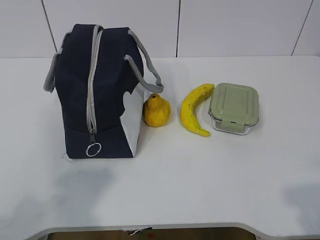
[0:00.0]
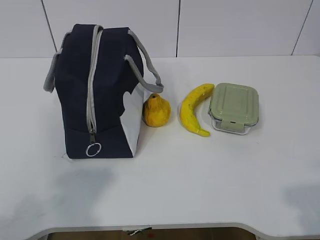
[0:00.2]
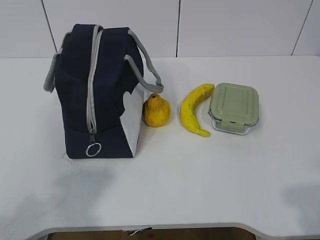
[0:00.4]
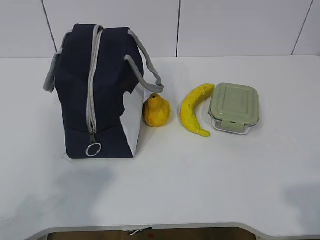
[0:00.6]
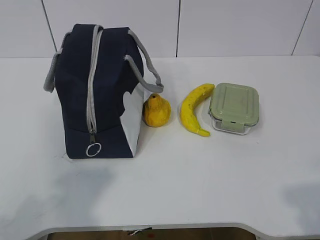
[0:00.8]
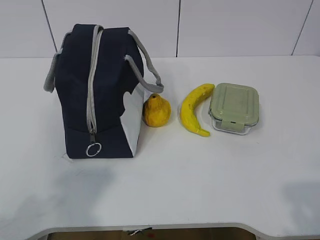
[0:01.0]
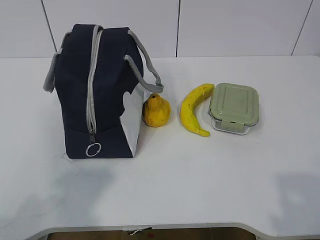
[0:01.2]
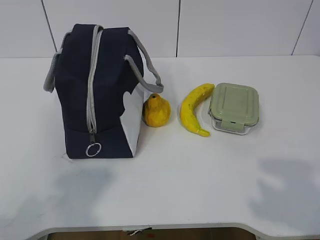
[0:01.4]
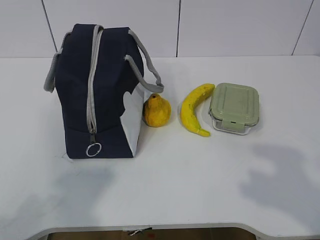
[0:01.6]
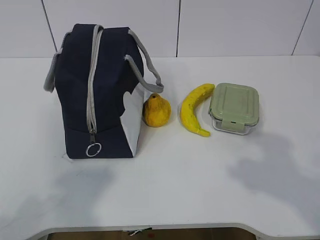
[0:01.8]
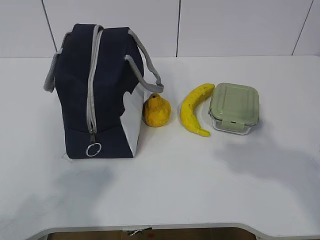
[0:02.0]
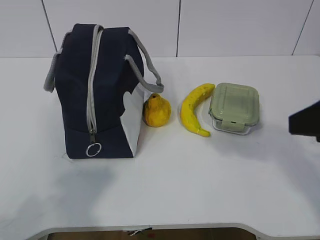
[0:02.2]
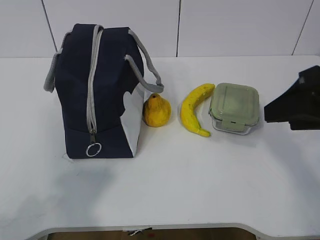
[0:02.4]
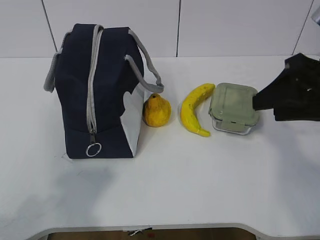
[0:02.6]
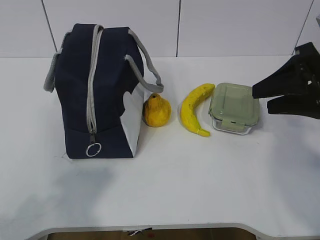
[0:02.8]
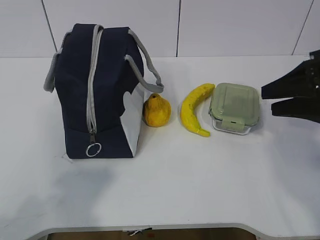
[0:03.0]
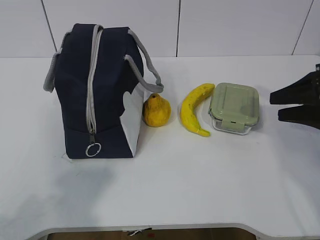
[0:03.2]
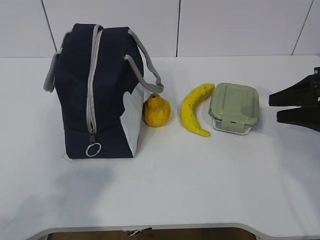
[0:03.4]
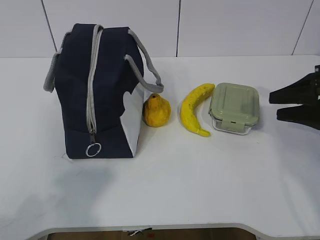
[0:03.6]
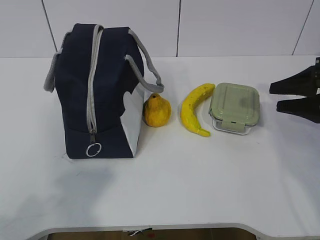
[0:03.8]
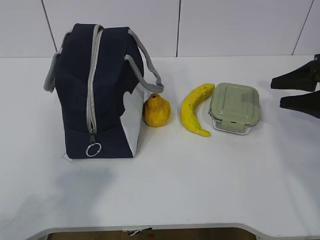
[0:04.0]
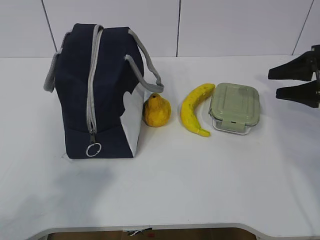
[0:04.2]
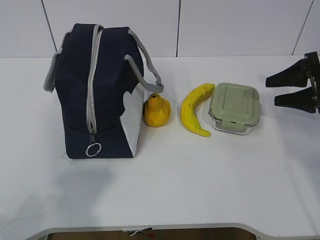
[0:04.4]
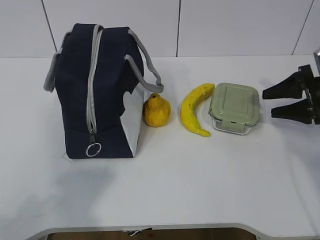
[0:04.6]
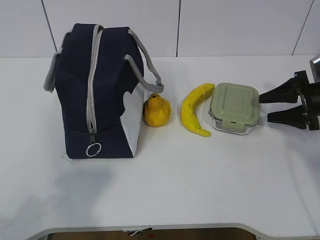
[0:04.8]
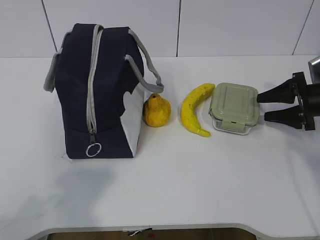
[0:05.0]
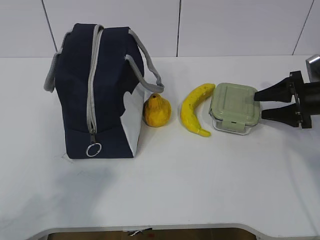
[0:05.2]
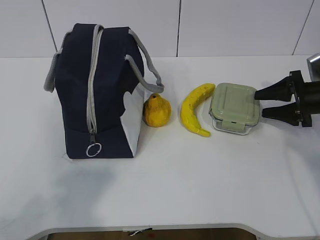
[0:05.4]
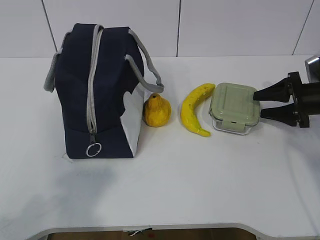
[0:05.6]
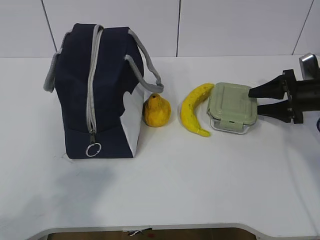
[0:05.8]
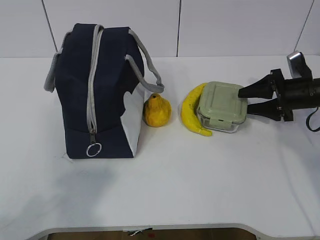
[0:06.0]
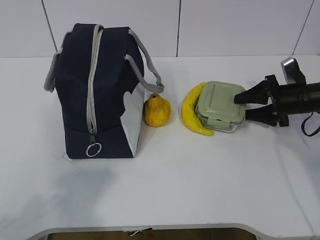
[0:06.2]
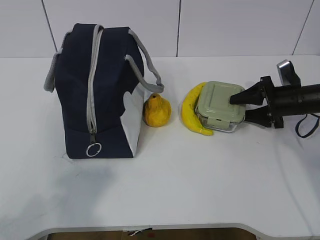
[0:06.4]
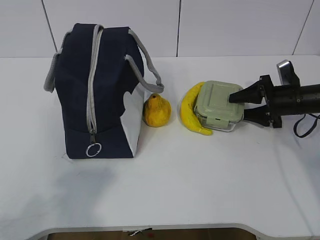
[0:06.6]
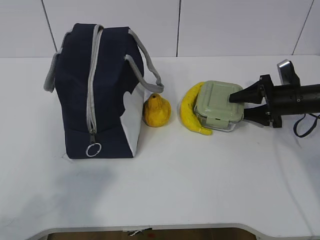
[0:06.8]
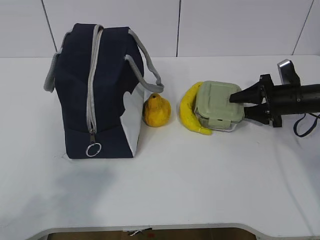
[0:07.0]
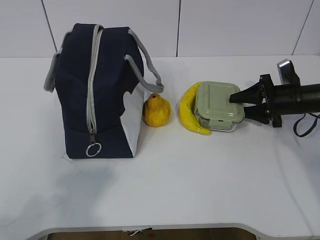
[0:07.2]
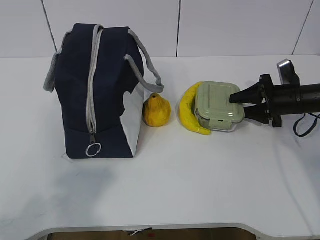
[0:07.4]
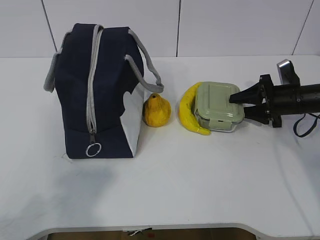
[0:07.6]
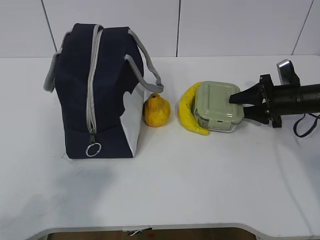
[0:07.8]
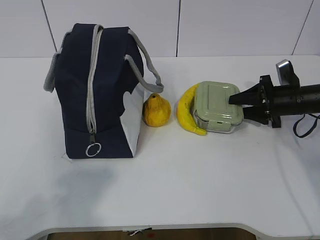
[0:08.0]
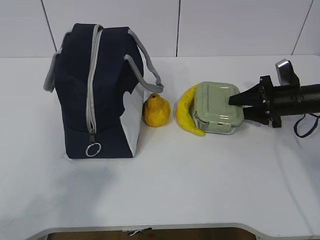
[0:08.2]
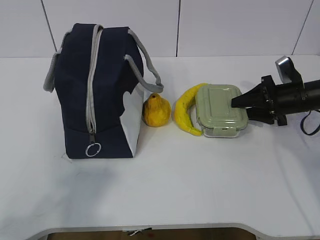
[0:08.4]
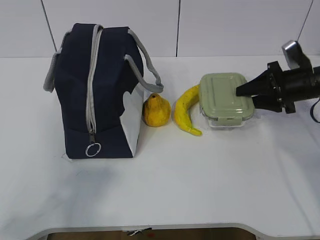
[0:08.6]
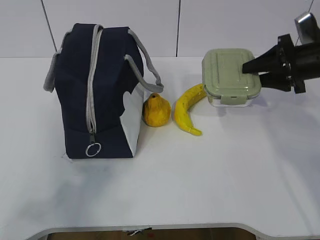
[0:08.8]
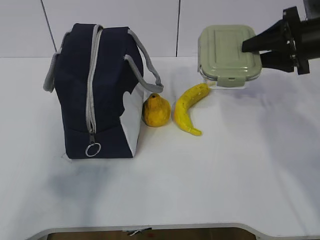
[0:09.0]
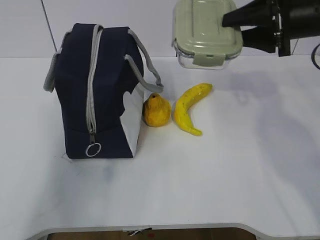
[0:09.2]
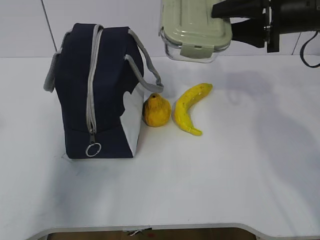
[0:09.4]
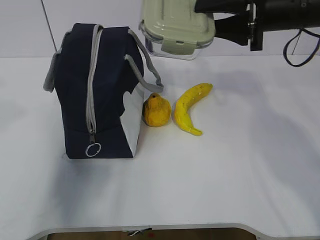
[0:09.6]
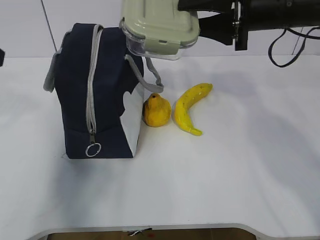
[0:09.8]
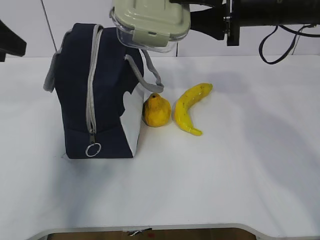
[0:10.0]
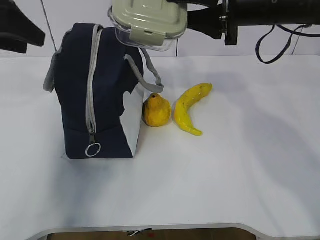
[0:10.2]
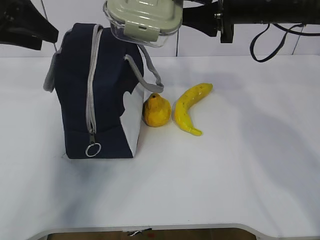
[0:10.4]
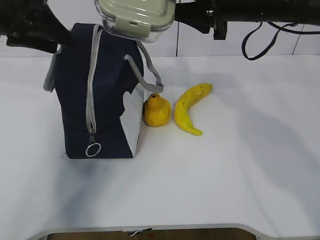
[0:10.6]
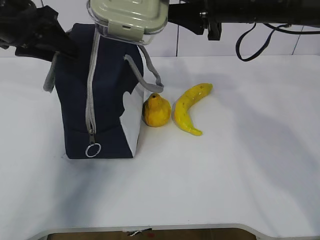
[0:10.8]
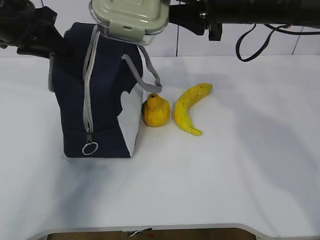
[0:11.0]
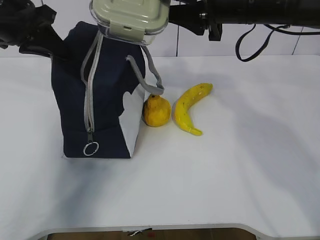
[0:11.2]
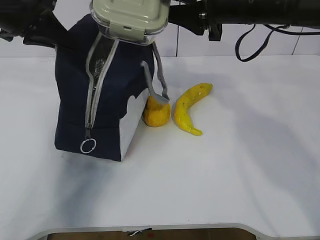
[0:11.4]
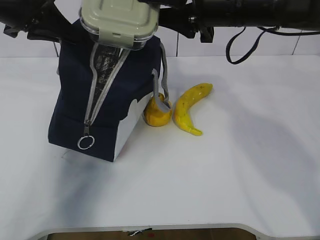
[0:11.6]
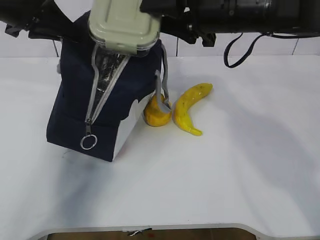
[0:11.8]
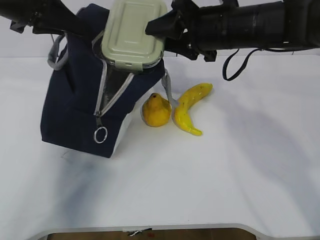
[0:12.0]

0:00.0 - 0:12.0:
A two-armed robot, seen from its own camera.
Step, 0:00.0 - 0:06.8: Grab the lunch box with your right hand.
Step, 0:07.0 - 0:09.8: Grab the lunch bag with your left hand.
Step, 0:10.0 - 0:11.6: Place it into the bag with your right hand.
0:01.6 - 0:03.0: The right gripper shifts roughly 25 cm forward.
0:03.0 - 0:04.4: The right gripper heads forward, to the right and downward, covering approximately 10 cm.
0:04.4 - 0:06.0: The right gripper shifts some 5 cm downward.
0:06.0 - 0:07.6: The grippers make only small movements.
0:07.6 - 0:09.0: The left gripper moves upward, some 5 cm. The right gripper travels upward by roughly 15 cm.
0:09.0 - 0:10.4: The left gripper heads forward, covering roughly 30 cm, and opens; the right gripper travels to the left and upward by about 15 cm.
0:10.4 - 0:12.0: The right gripper moves approximately 5 cm. The left gripper closes its fingers.

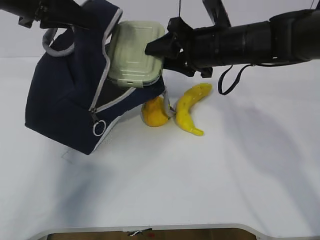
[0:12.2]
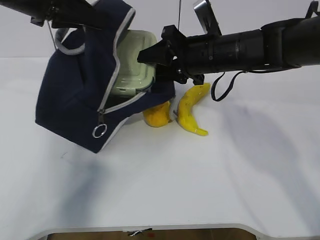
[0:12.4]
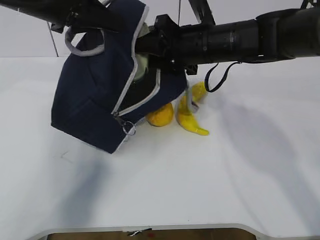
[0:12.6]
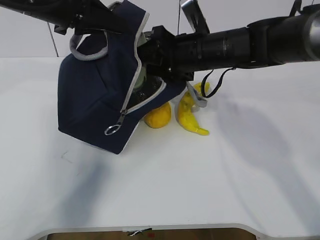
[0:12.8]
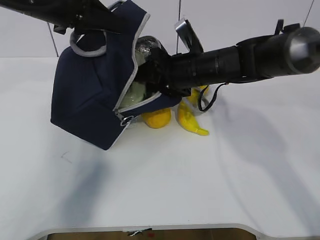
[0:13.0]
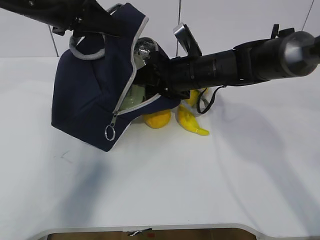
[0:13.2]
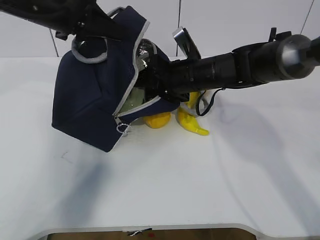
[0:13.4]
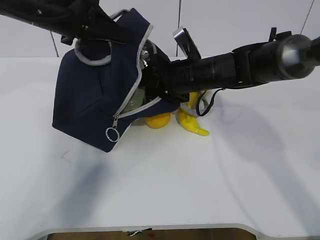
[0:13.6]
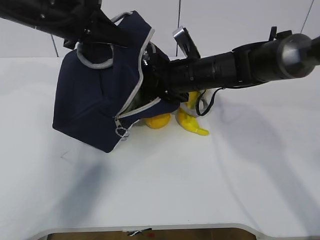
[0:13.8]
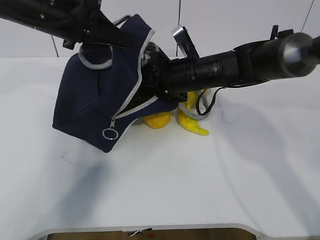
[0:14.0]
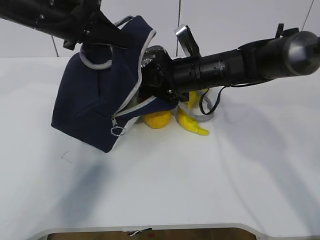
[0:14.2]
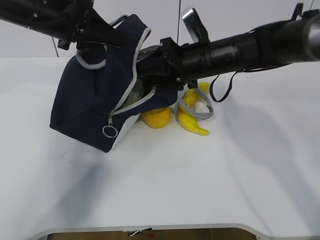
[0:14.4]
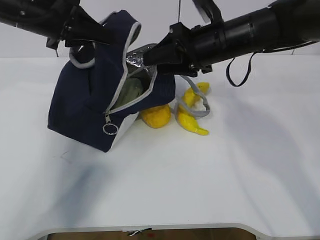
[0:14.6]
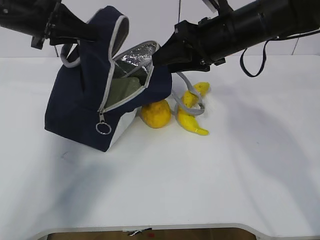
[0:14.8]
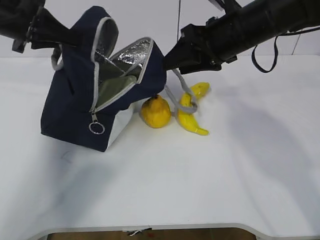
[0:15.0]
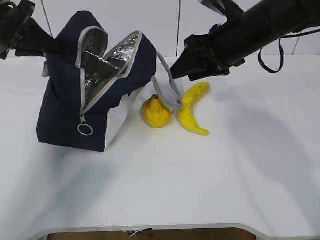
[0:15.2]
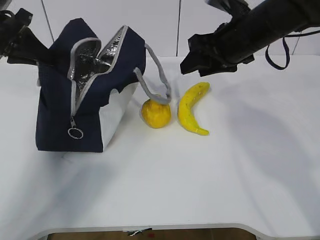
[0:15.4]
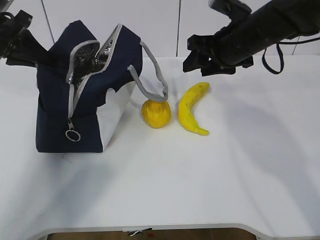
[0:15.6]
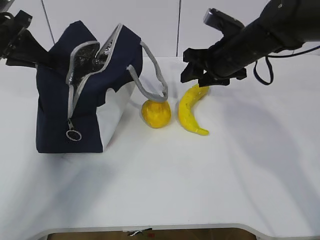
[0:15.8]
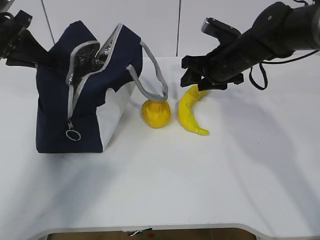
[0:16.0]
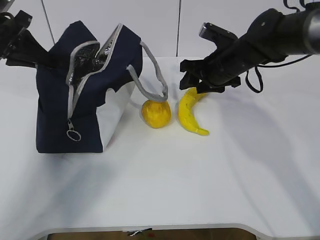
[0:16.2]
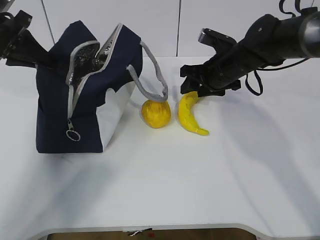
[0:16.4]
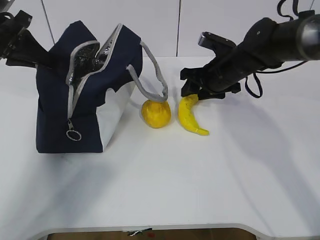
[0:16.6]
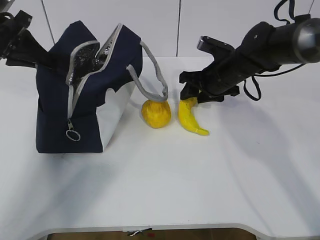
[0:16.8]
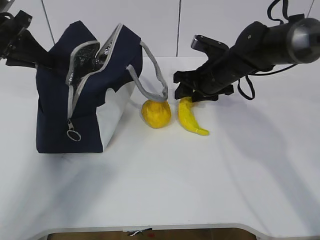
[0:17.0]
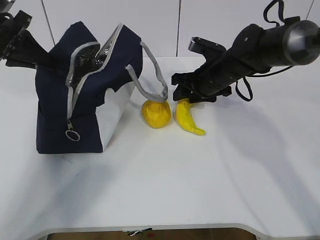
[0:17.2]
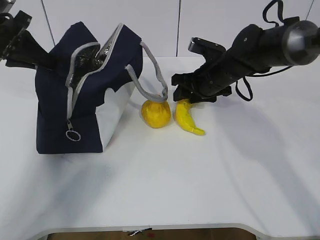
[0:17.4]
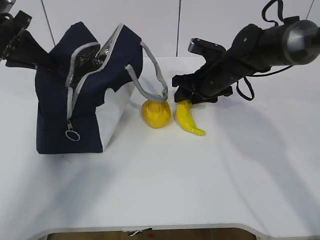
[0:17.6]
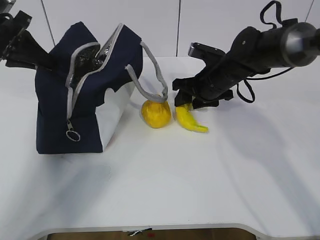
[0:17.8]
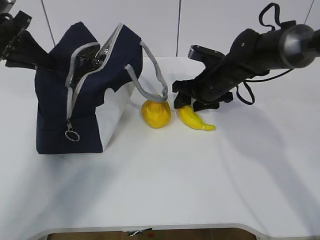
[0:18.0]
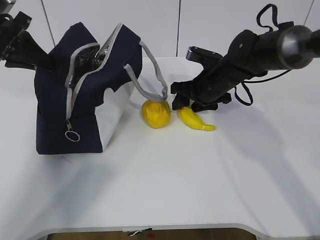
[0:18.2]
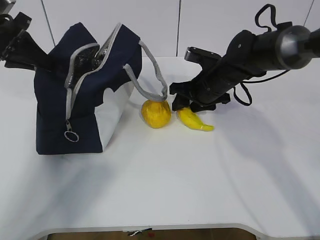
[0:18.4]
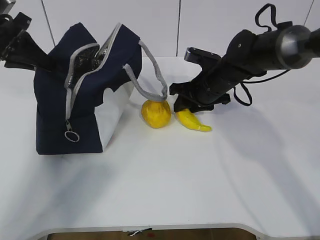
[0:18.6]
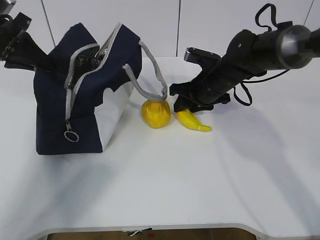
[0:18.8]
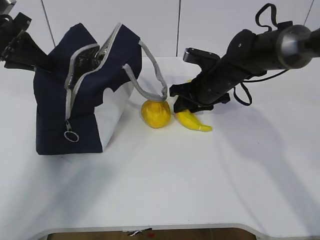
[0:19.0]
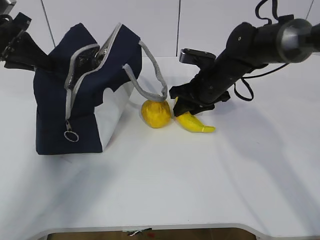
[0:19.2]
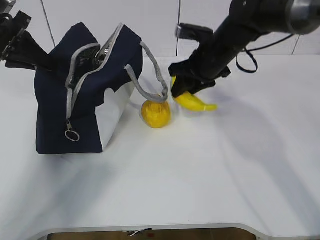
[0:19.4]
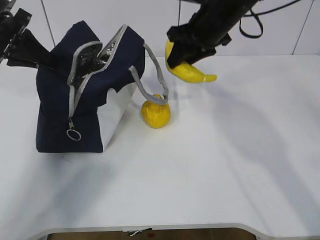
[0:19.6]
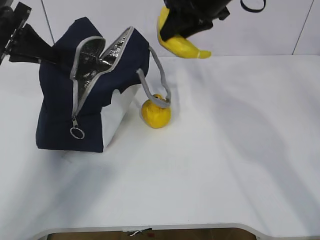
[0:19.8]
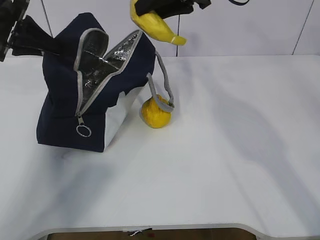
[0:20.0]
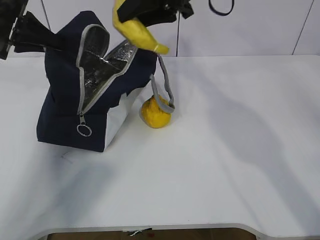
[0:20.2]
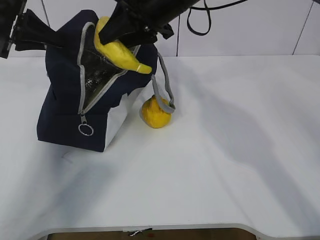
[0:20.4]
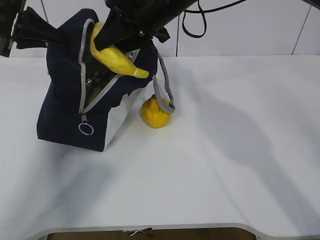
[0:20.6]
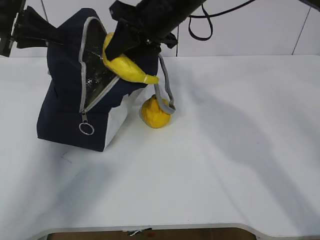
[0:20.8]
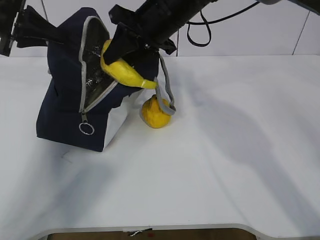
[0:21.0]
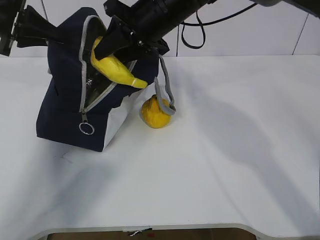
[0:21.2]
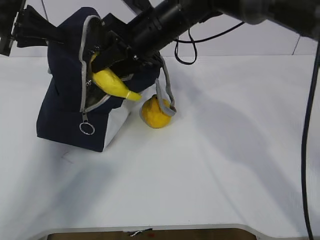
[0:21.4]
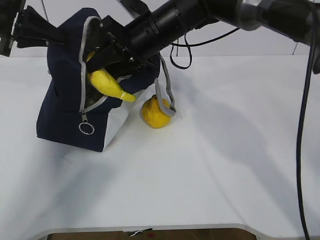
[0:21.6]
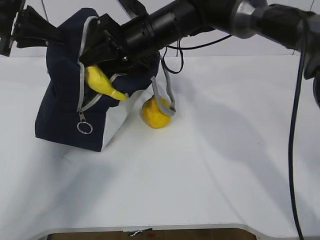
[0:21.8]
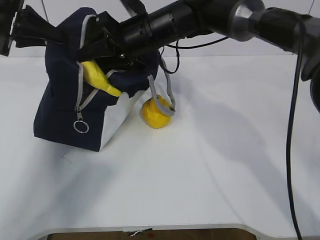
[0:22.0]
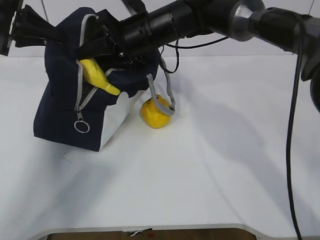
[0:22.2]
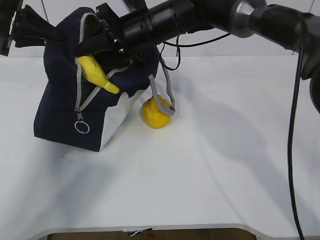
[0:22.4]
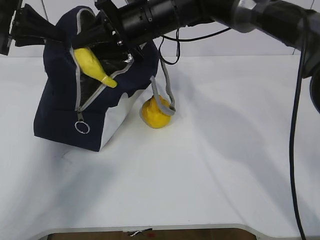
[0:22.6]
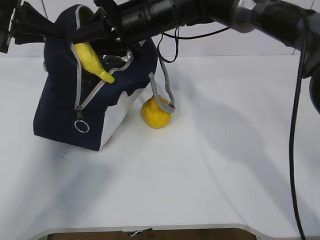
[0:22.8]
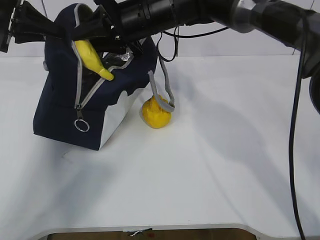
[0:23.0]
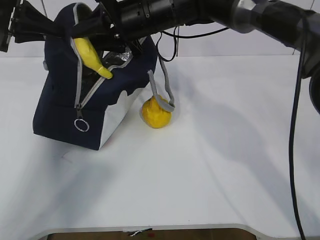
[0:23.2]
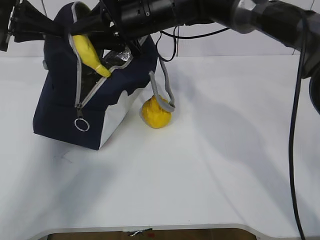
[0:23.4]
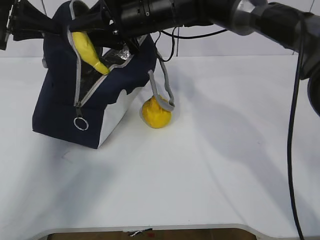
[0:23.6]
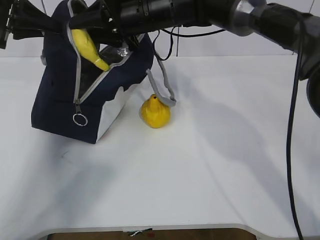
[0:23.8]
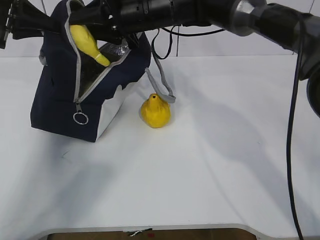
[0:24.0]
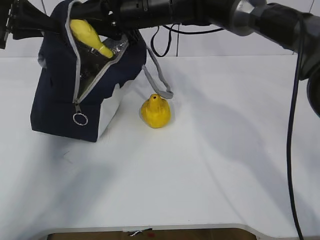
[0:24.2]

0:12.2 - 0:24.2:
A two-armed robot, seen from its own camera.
Step, 0:12.2 - 0:15.8: Grab the banana with your right hand.
Step, 0:16.0 - 0:21.2: Place it into the bag with your right hand.
Step, 0:21.4 - 0:23.8: Grab the pear with your right hand.
0:12.2 - 0:13.8: The right gripper shifts about 5 cm downward. The left gripper moves roughly 5 cm.
0:13.8 - 0:15.2: The right gripper travels upward and to the right by approximately 10 cm, while the left gripper travels to the left by approximately 10 cm.
0:15.2 - 0:16.6: The right gripper moves downward and forward, roughly 10 cm.
0:16.6 - 0:18.2: The grippers move only a little.
0:18.2 - 0:19.8: The right gripper goes approximately 20 cm upward.
0:19.8 - 0:21.2: The right gripper shifts approximately 10 cm to the left.
0:21.2 - 0:22.6: The grippers stay close to where they were, moving slightly.
0:22.6 - 0:24.2: The grippers make only small movements.
